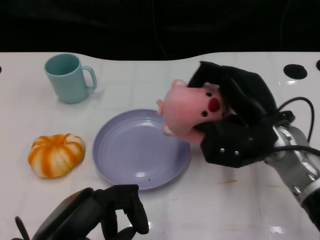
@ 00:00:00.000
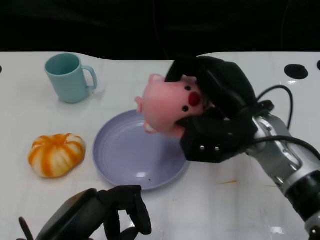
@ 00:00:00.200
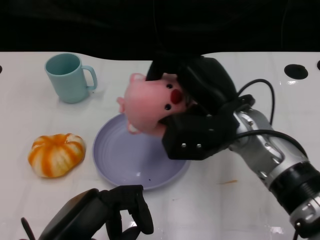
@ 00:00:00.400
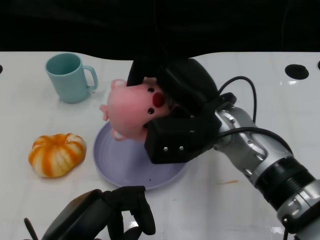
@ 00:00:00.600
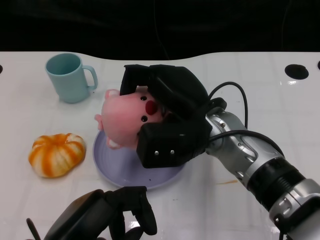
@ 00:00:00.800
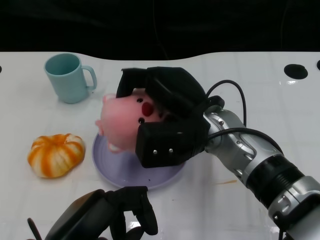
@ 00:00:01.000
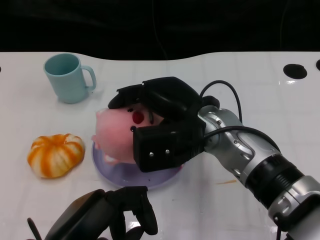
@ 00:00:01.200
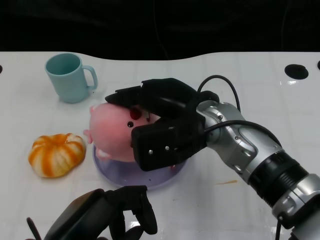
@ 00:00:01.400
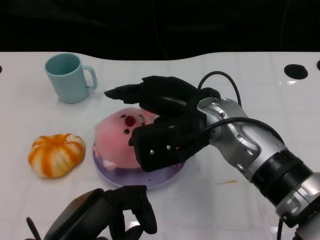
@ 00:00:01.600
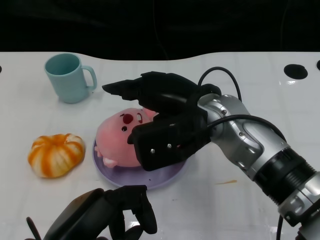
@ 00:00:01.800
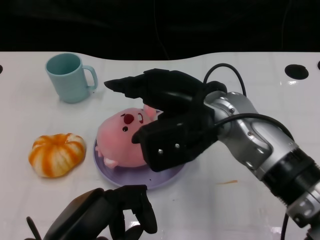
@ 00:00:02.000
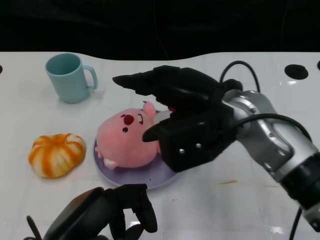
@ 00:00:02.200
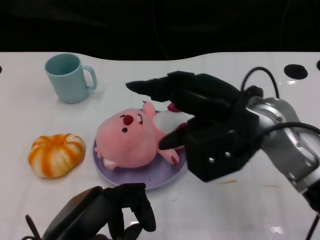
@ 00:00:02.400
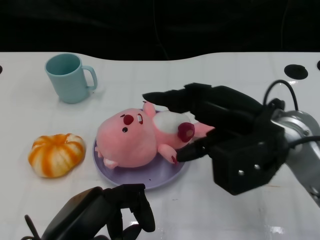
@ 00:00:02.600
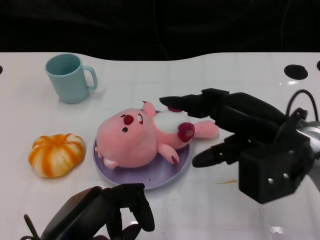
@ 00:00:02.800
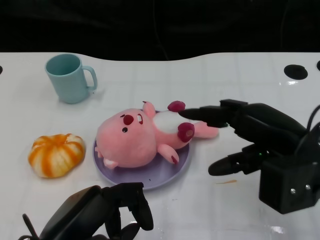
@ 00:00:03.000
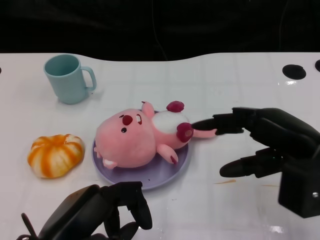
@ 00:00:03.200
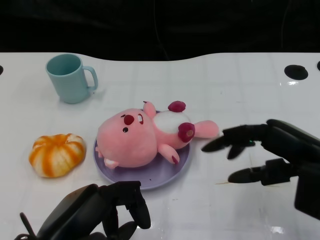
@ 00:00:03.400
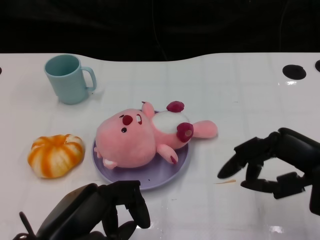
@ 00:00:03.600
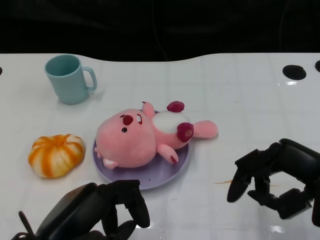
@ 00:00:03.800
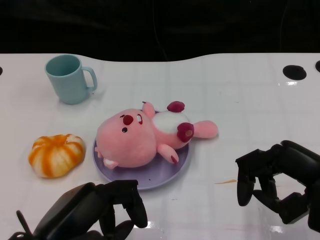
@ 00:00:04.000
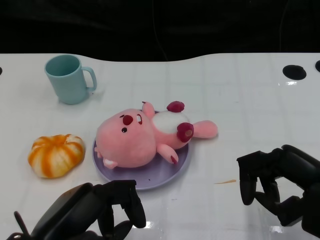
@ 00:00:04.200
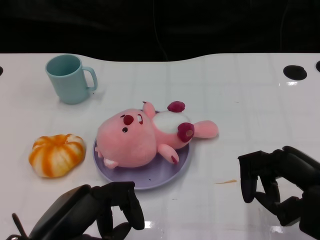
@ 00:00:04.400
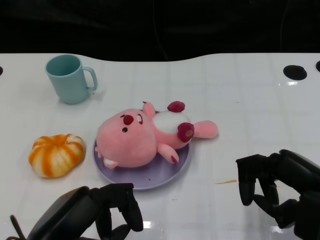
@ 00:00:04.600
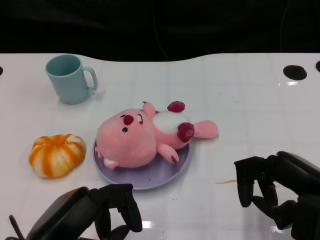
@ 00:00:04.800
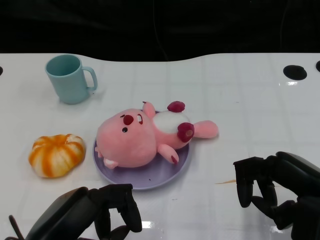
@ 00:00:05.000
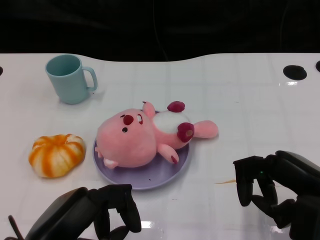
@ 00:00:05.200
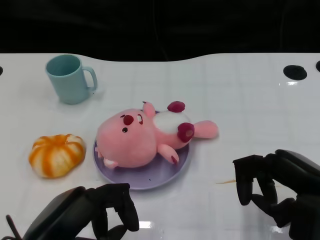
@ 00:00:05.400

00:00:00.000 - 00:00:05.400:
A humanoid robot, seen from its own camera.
Task of the whole recording: Pick up the doll on the other side of the plate and place it into the plate.
Step, 00:00:00.200 - 00:00:02.200: Place the pink doll into the plate with the right gripper.
00:00:00.000 - 00:00:01.400: The right hand travels to the left by approximately 10 cm.
00:00:01.400 - 00:00:02.800: The right hand is displaced to the right by some 10 cm.
00:00:02.800 - 00:00:04.000: The right hand moves backward and to the right, approximately 10 cm.
00:00:04.000 - 00:00:05.400: There are only small adjustments of the hands.

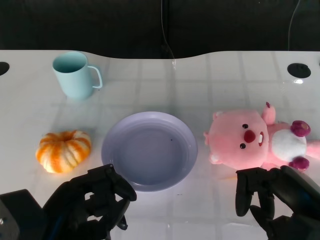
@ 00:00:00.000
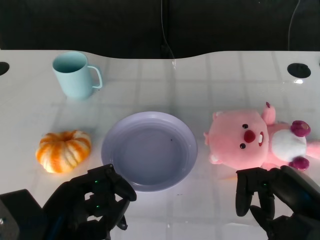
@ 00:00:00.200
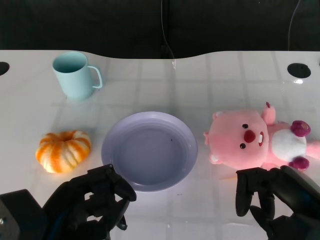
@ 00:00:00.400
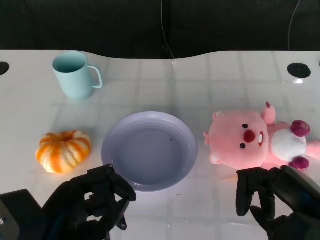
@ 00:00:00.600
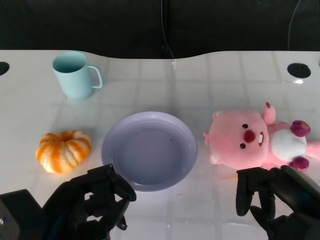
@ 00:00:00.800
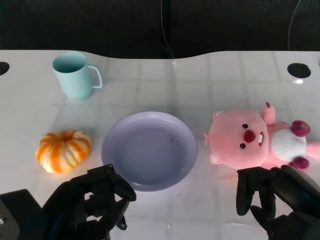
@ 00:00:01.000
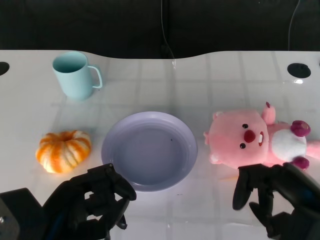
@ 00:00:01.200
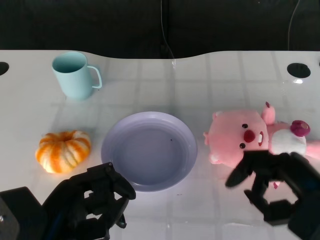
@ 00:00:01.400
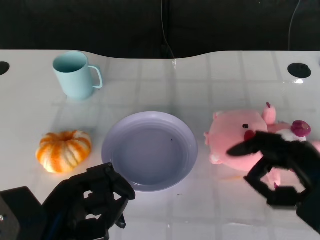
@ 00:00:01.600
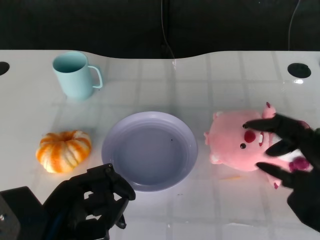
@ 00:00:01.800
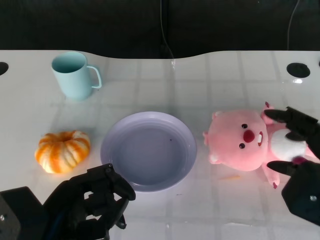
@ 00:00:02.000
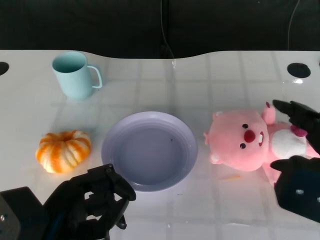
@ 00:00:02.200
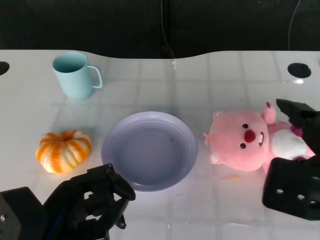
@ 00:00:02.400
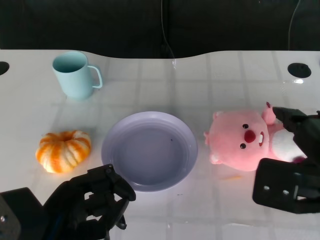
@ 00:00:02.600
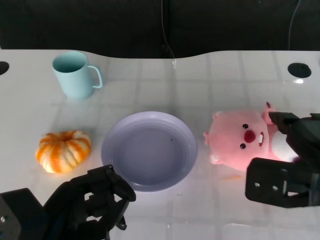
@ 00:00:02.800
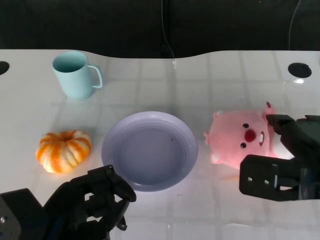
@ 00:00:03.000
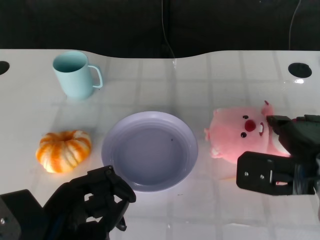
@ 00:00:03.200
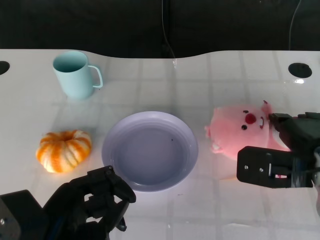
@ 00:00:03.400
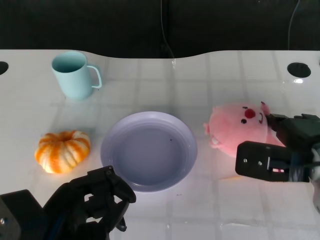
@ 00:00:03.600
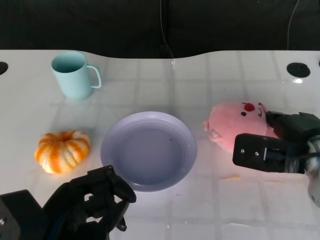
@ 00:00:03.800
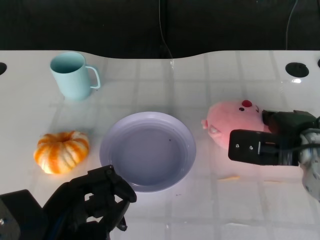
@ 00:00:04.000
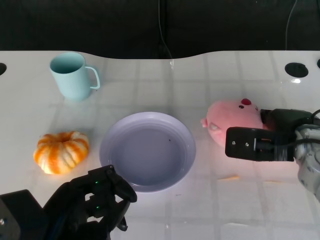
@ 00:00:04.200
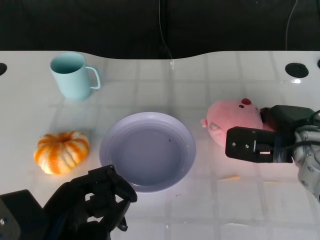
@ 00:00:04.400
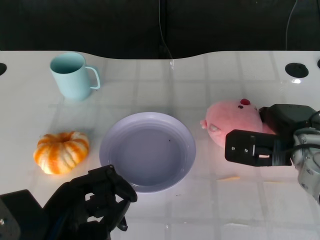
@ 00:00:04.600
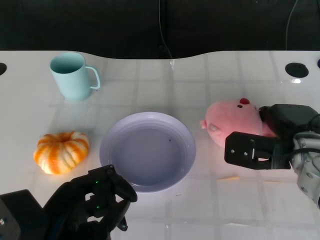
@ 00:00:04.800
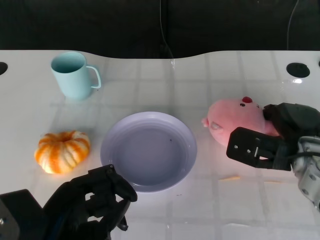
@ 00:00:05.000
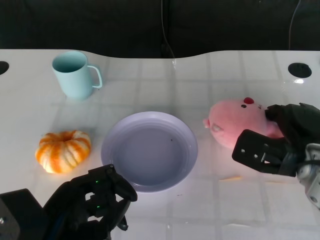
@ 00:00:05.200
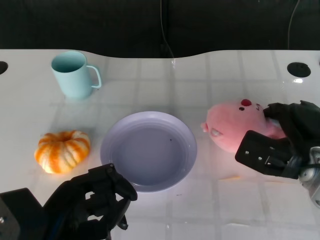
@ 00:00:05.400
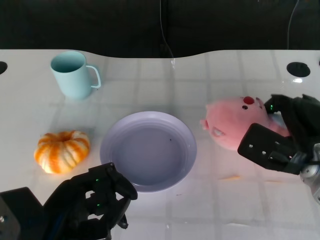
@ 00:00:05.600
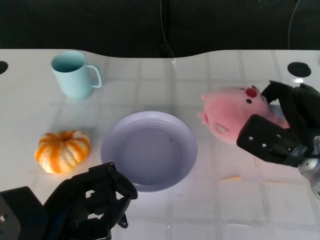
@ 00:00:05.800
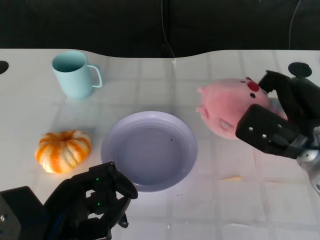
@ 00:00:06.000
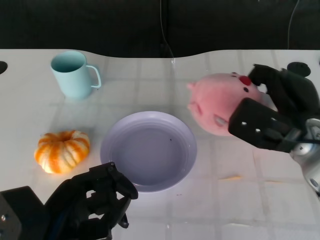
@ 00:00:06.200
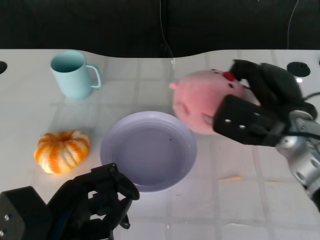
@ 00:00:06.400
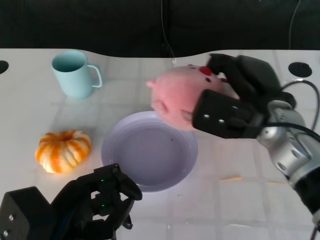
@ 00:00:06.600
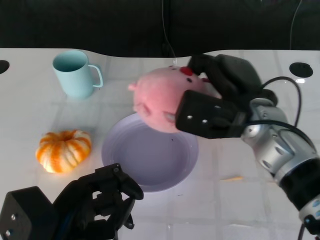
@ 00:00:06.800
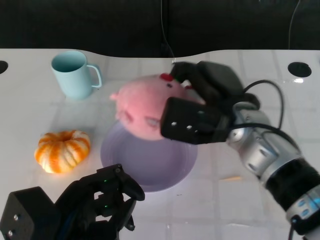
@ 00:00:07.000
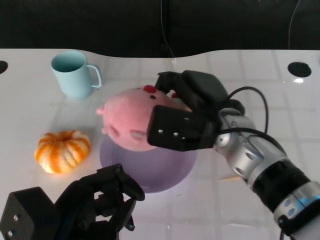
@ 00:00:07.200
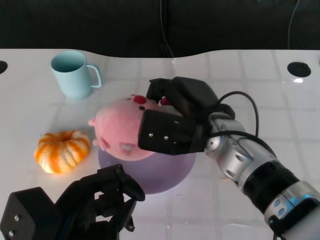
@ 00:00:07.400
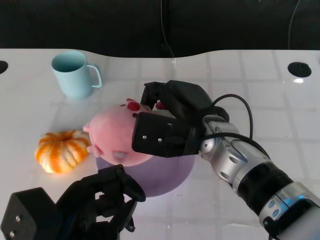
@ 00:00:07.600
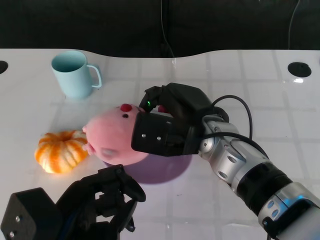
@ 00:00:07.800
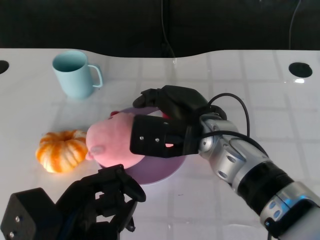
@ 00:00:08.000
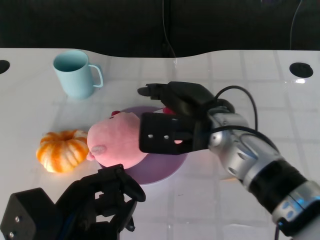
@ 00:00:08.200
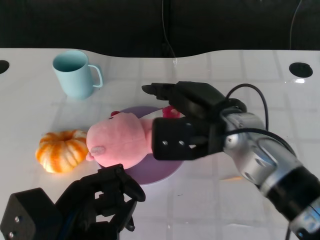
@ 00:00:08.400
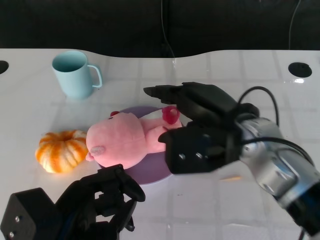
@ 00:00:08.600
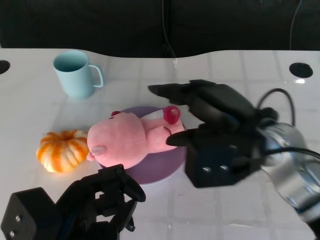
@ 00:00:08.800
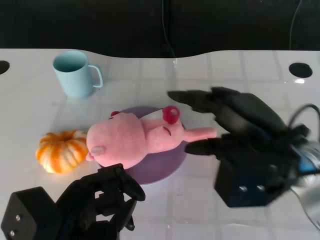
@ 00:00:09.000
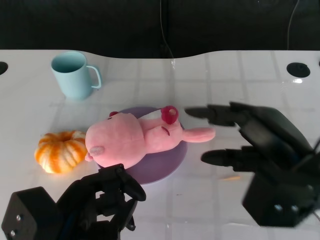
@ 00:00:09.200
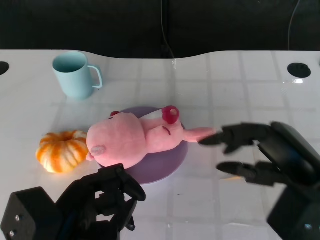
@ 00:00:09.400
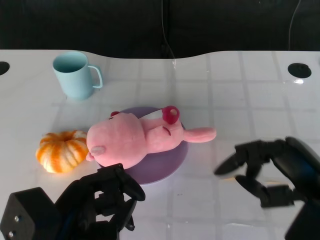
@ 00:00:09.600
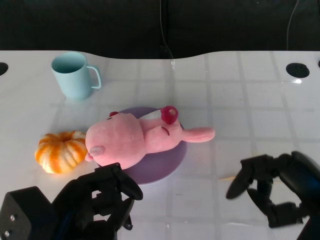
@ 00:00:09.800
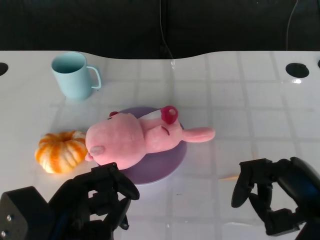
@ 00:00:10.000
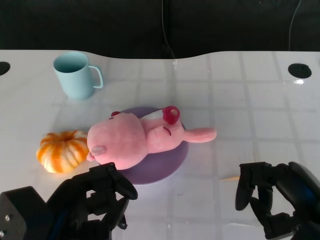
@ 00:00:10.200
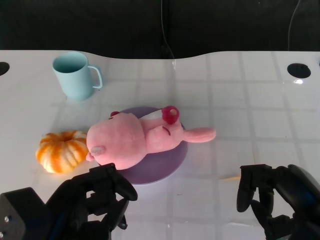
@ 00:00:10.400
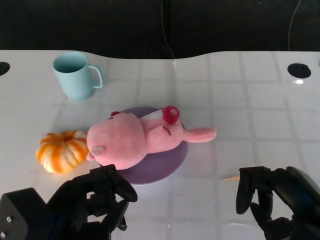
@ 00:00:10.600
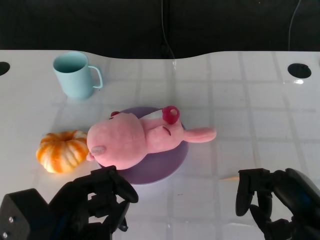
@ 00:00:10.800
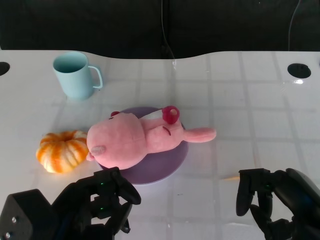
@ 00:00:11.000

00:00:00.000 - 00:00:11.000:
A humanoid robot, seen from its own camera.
Task of the whole recording: Pick up the doll on the other side of the plate and place it into the plate.
Step, 00:00:01.400 - 00:00:05.600: Grasp the pink doll with the right gripper.
Step, 00:00:05.800 - 00:00:08.600: Place the pink doll into the plate with the right gripper.
00:00:01.600 - 00:00:03.200: The right hand shifts about 5 cm forward.
00:00:03.200 - 00:00:04.800: The right hand goes roughly 5 cm forward.
00:00:06.200 - 00:00:07.800: The right hand travels to the left by some 15 cm.
00:00:07.800 - 00:00:09.400: The right hand goes about 20 cm to the right and backward.
00:00:09.400 - 00:00:11.000: The right hand moves about 5 cm.

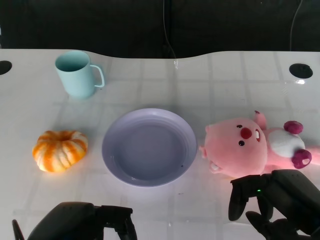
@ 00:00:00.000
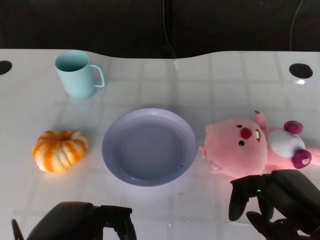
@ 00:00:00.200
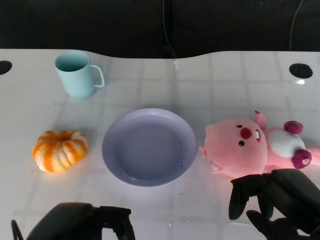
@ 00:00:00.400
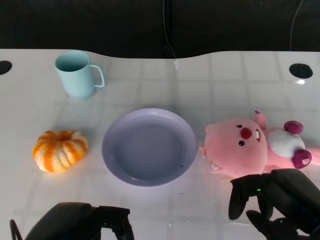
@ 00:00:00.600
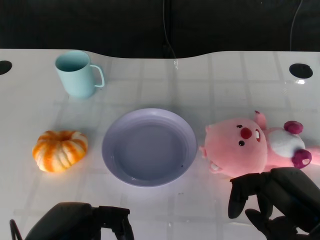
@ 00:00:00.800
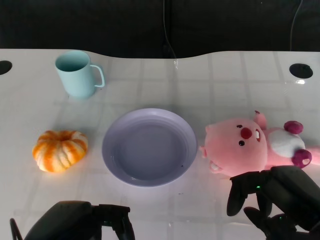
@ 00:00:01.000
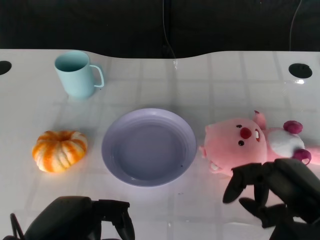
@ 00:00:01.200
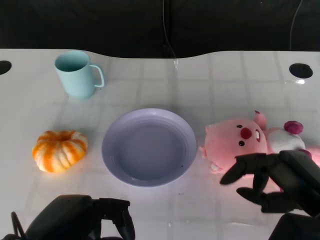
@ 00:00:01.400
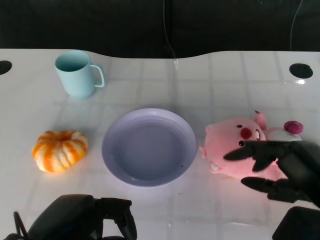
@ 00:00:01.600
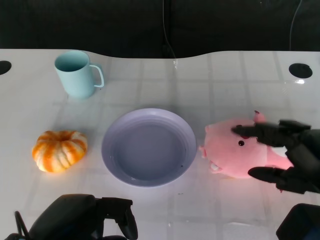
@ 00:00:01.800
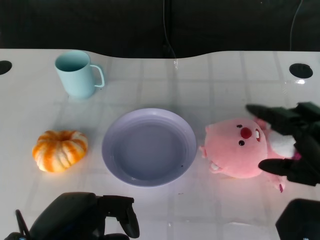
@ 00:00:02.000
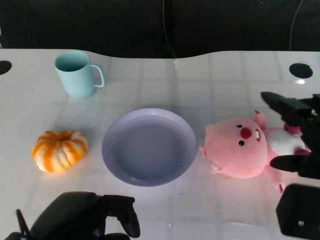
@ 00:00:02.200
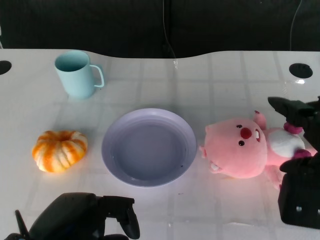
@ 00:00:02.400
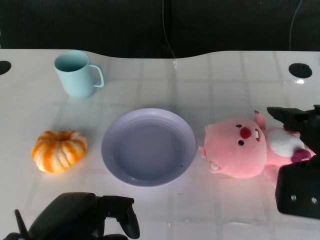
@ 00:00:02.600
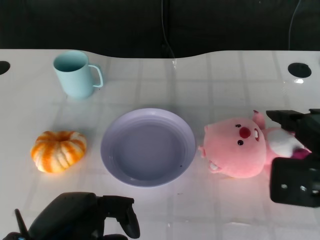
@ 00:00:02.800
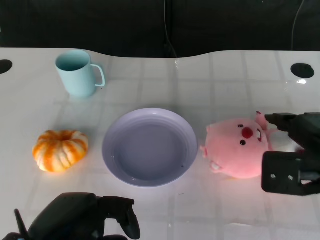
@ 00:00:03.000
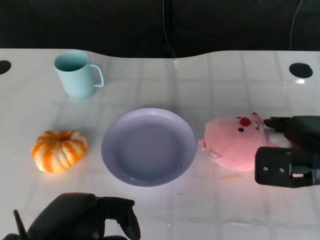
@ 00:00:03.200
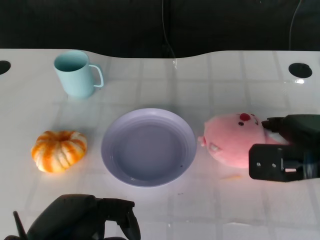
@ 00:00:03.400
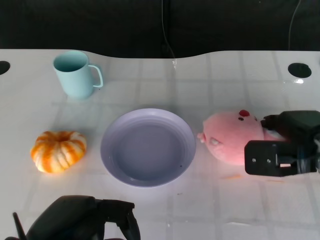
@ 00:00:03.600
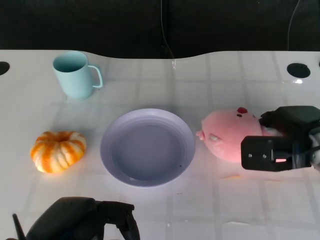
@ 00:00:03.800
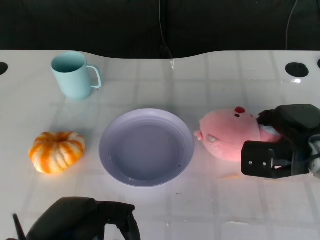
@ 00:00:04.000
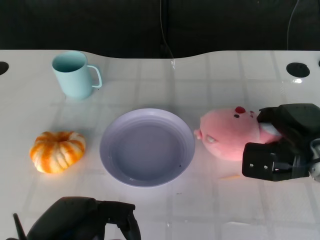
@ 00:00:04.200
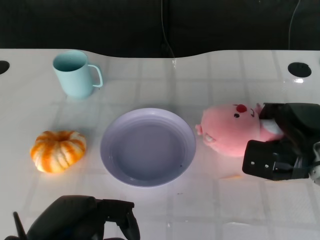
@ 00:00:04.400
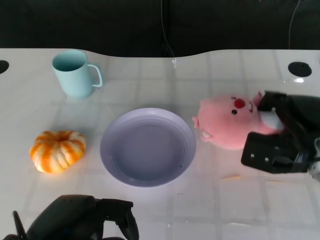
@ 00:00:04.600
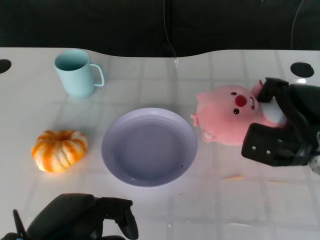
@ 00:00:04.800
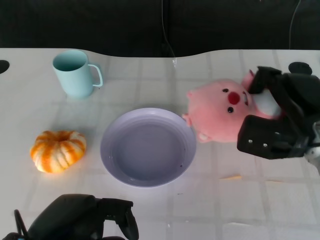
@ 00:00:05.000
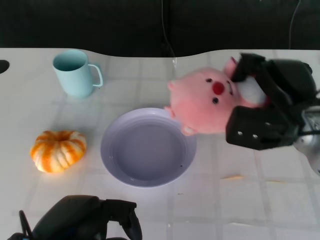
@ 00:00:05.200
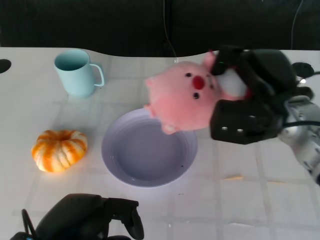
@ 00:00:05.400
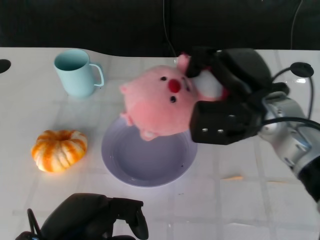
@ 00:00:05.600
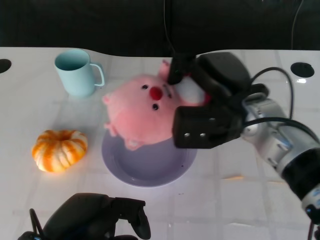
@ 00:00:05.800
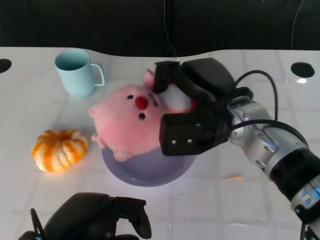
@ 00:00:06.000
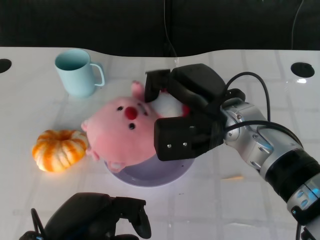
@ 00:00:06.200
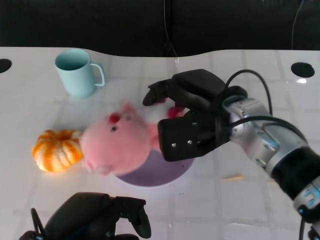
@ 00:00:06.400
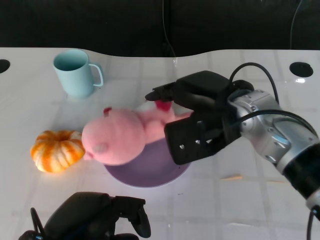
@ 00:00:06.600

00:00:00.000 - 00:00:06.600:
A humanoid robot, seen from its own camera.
Task of the whole recording: Pick up the doll on the other side of the plate and place it into the plate.
Step, 00:00:01.000 - 00:00:04.400: Grasp the pink doll with the right gripper.
Step, 00:00:04.600 - 00:00:06.600: Place the pink doll into the plate with the right gripper.
00:00:01.600 - 00:00:03.200: The right hand goes approximately 10 cm forward.
00:00:03.200 - 00:00:05.000: The right hand changes place by about 5 cm.
00:00:05.000 - 00:00:06.600: The right hand heads to the left and upward, covering some 15 cm.
